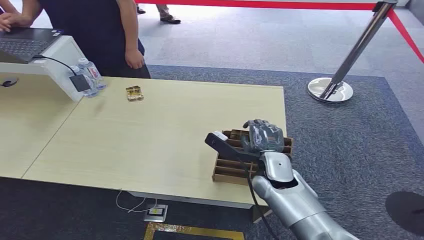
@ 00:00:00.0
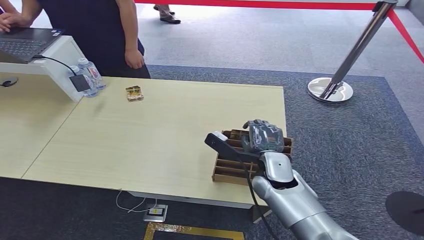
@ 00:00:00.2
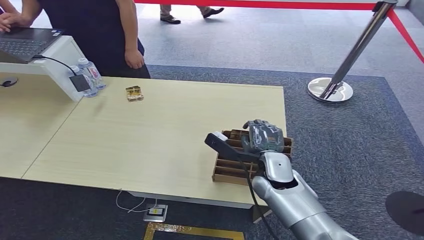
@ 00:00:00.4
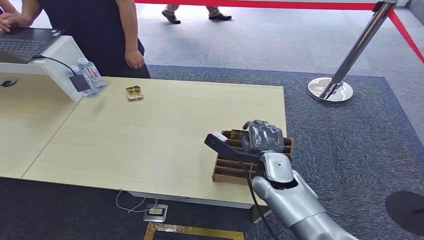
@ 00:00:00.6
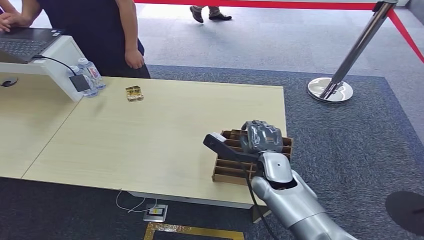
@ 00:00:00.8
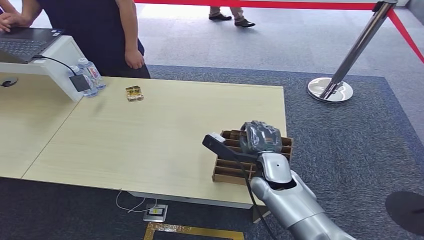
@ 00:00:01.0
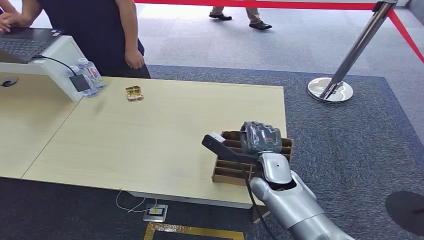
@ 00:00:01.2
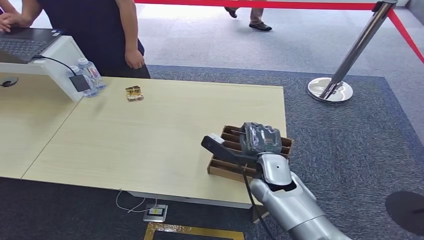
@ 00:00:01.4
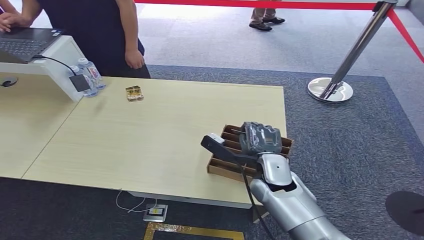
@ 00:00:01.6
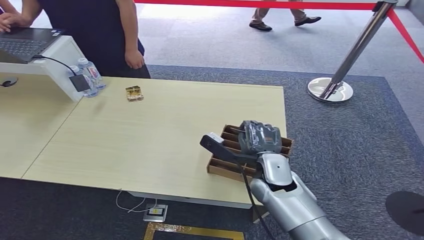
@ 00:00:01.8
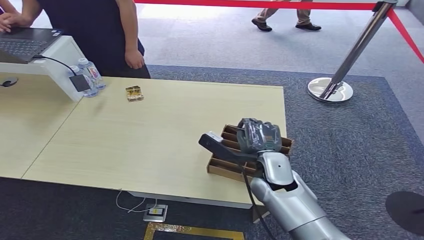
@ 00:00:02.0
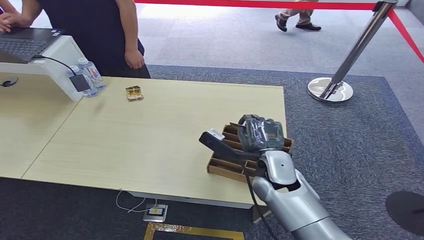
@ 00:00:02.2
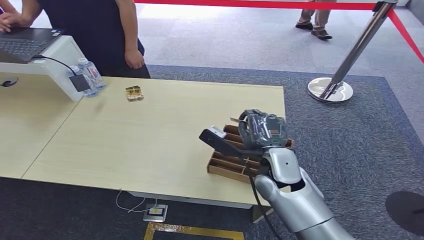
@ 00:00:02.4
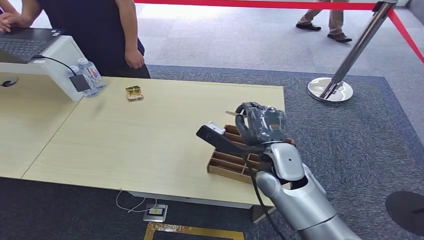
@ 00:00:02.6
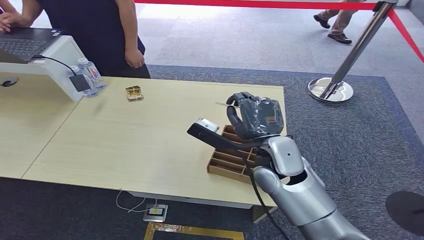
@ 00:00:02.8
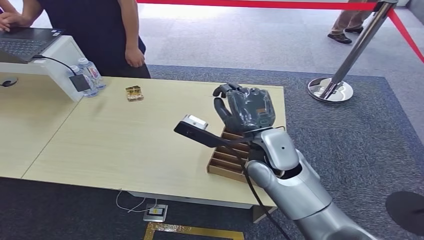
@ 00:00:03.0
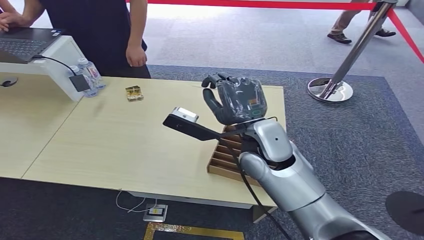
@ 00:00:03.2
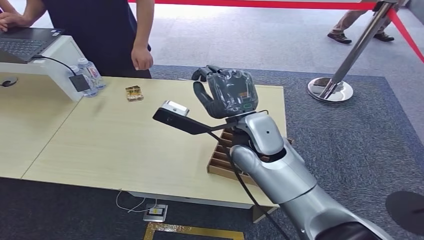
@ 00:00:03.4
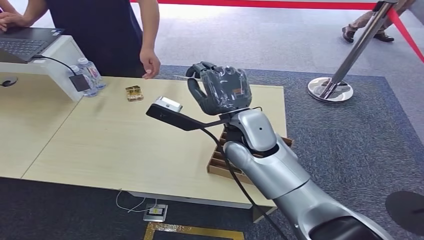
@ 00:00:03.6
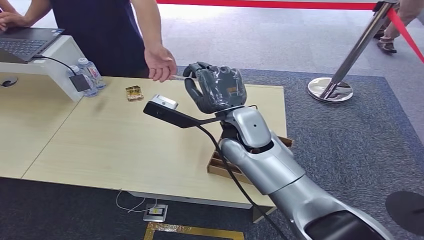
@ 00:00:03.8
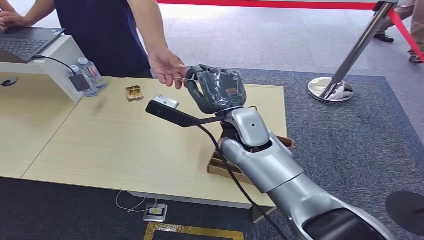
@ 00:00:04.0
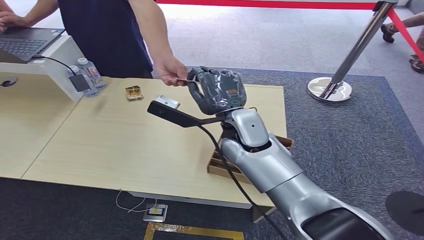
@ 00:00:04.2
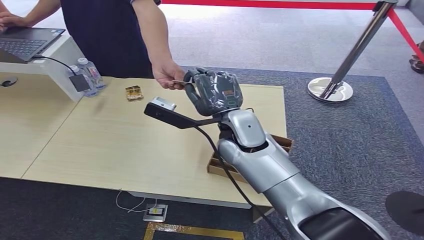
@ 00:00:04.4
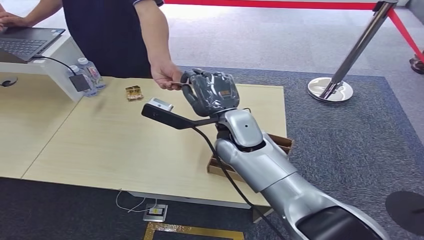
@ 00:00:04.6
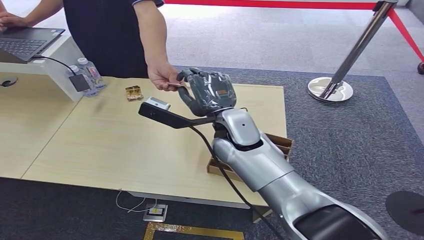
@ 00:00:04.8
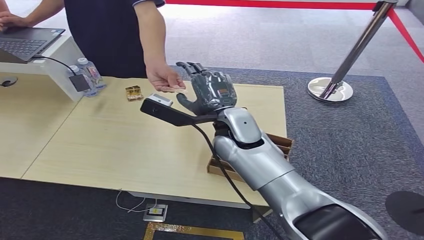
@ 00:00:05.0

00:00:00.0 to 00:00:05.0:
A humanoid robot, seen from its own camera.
Step, 00:00:00.0 to 00:00:02.6: Pick up the key card from the card box.
Step, 00:00:02.8 to 00:00:05.0: Hand the key card to the target.
00:00:01.6 to 00:00:03.4: The right hand is displaced upward by roughly 15 cm.
00:00:03.4 to 00:00:05.0: There are only small adjustments of the hands.
